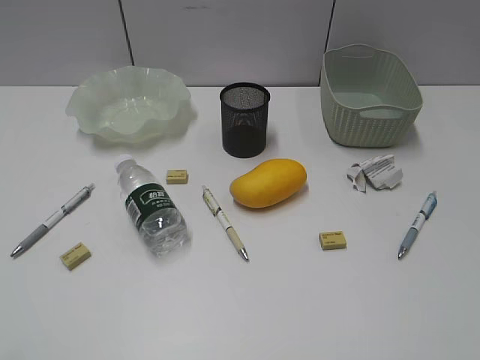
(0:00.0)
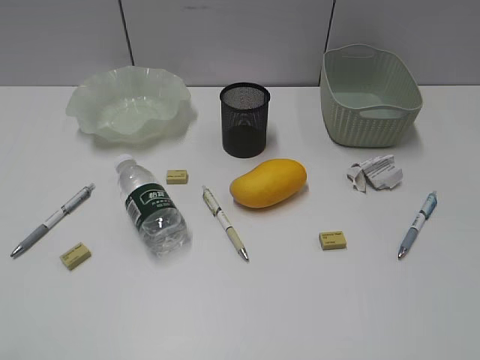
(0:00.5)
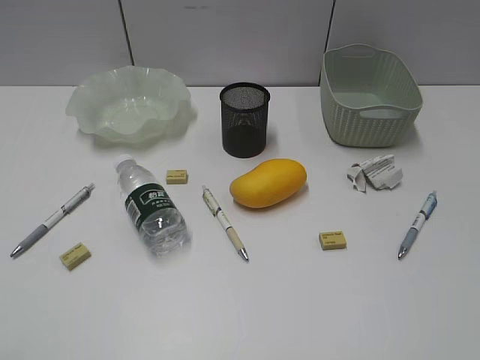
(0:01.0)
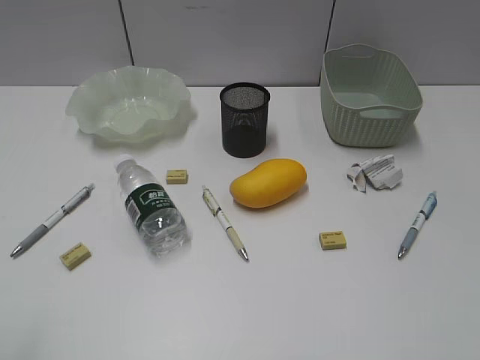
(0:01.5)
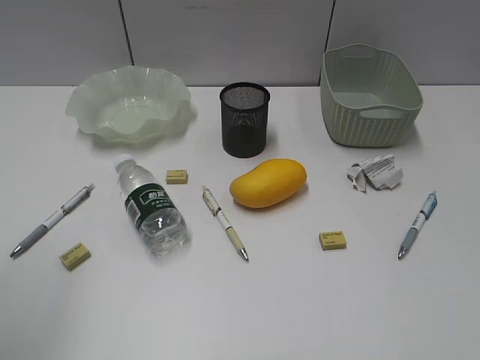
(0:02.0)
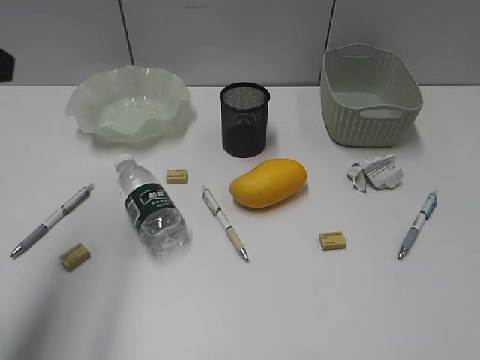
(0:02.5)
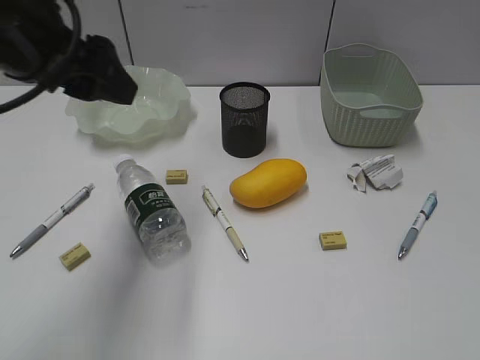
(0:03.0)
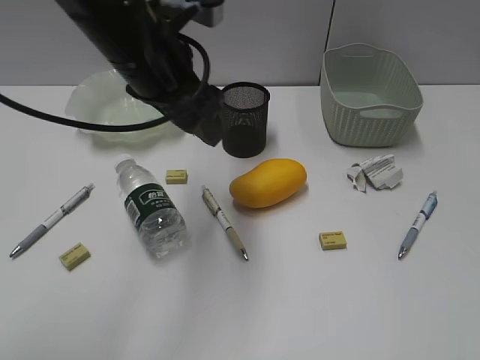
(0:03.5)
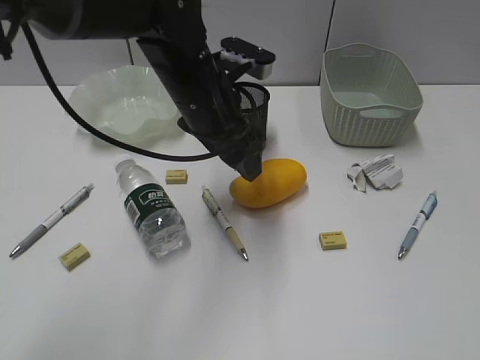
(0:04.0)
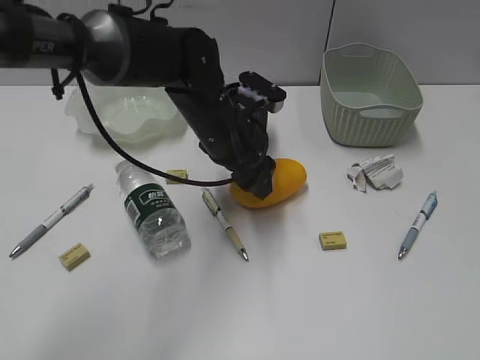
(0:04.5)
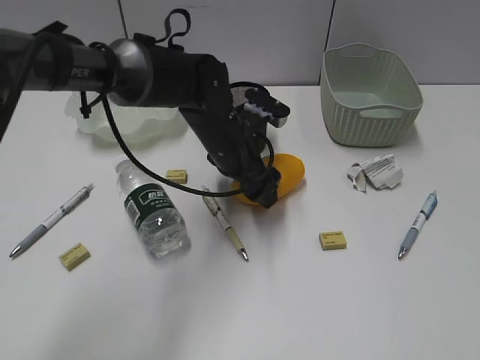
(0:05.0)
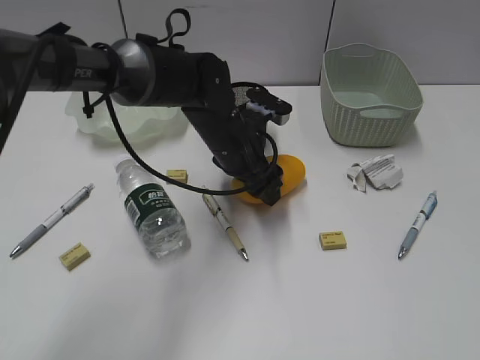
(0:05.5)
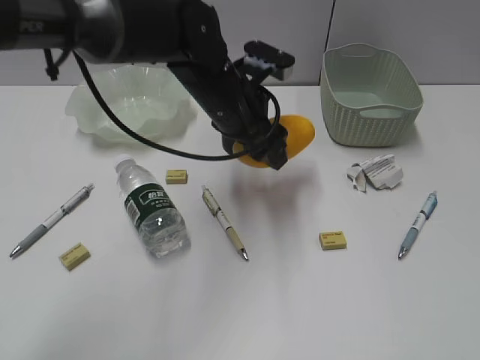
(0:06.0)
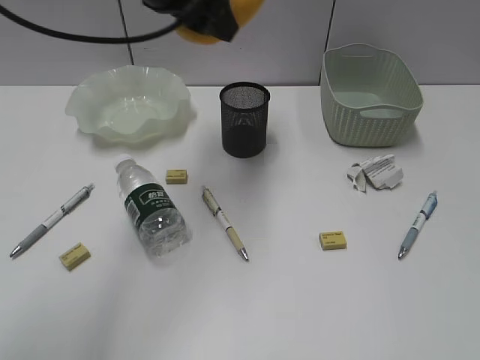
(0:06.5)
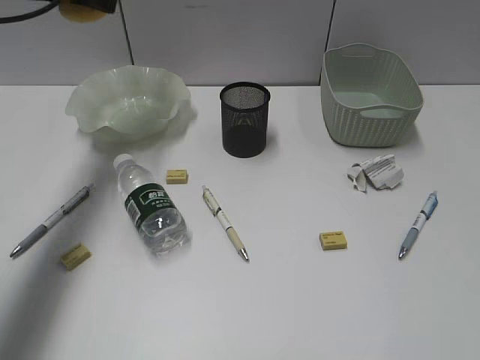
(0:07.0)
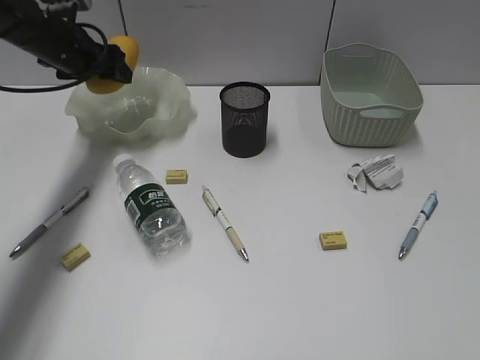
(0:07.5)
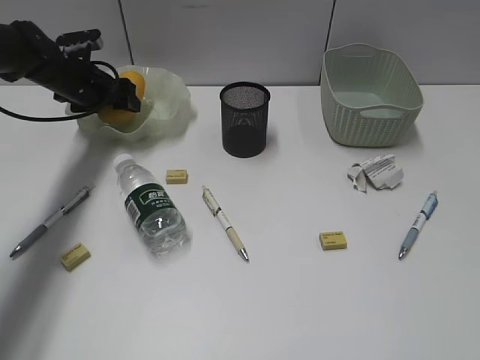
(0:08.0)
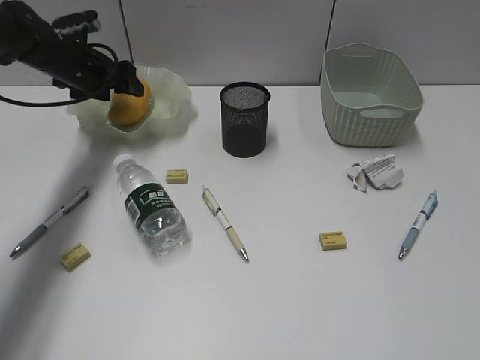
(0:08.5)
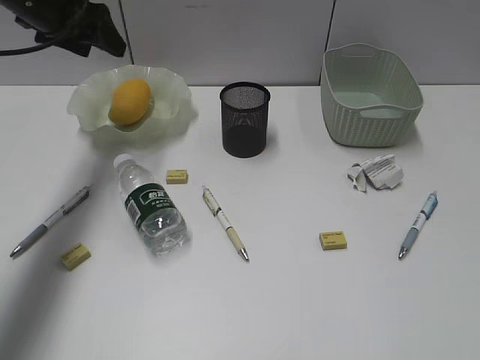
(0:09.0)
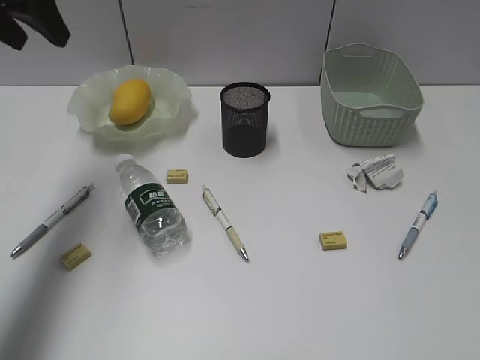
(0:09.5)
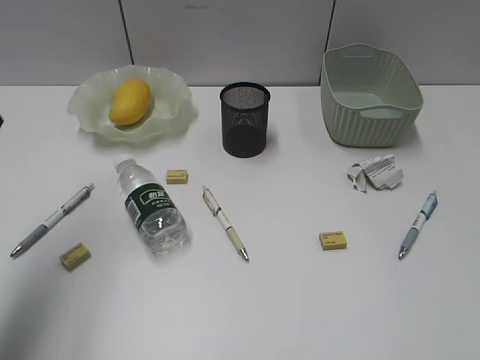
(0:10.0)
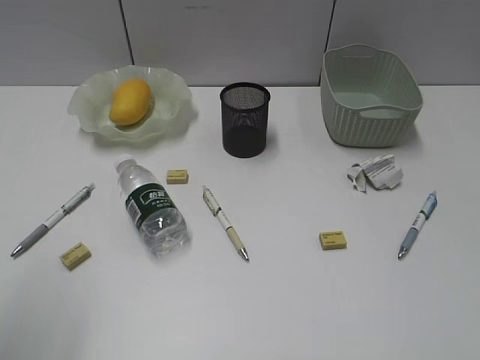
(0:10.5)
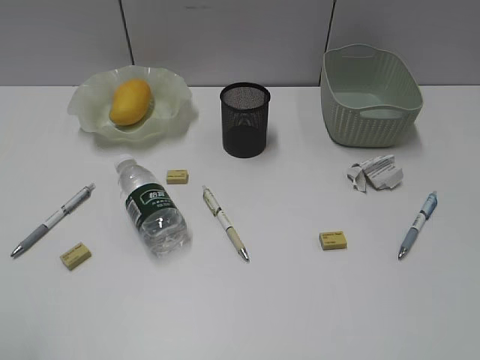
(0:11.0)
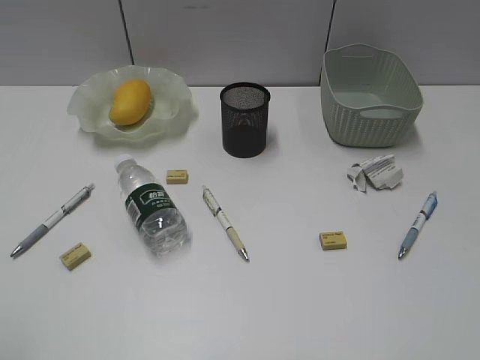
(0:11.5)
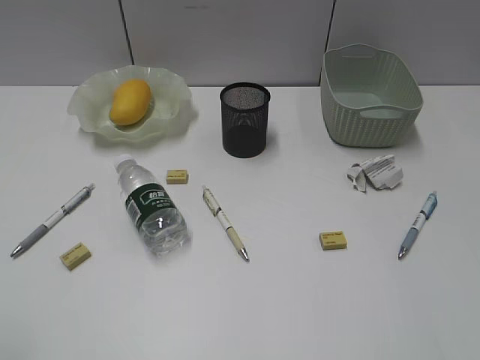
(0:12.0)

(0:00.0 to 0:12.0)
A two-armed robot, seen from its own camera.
Step, 0:02.5 - 0:05.5: Grasp the mango with left gripper.
Step, 0:06.0 - 0:08.5: Place the mango in the plate with left gripper.
0:02.0 - 0:04.0: The left gripper moves to the right, forward and downward, some 40 cm.
0:04.0 - 0:06.0: The left gripper reaches approximately 10 cm downward, then returns.
0:06.0 - 0:08.0: The left gripper goes some 25 cm to the left and forward.
0:08.0 - 0:10.0: The left gripper moves backward and upward, about 35 cm.
0:10.0 - 0:12.0: The left gripper travels backward by roughly 20 cm.

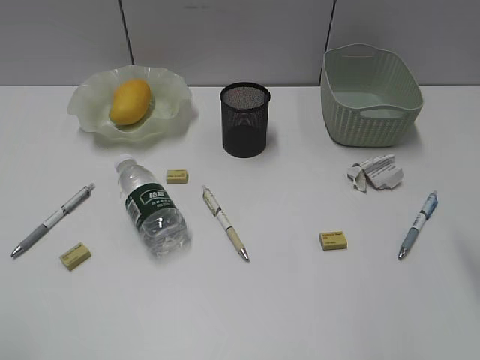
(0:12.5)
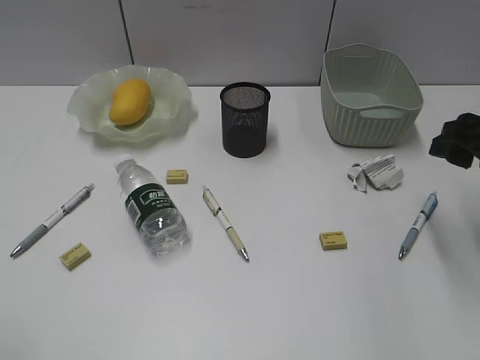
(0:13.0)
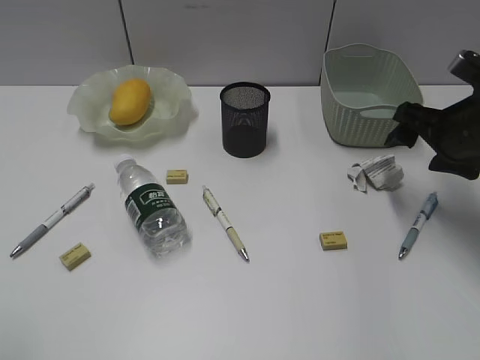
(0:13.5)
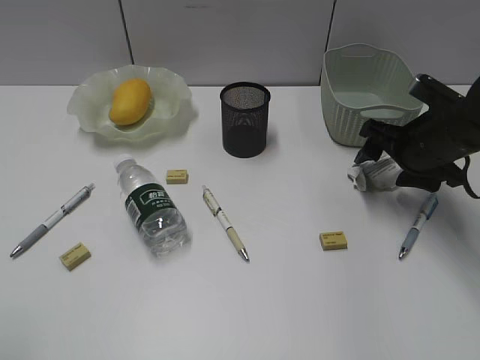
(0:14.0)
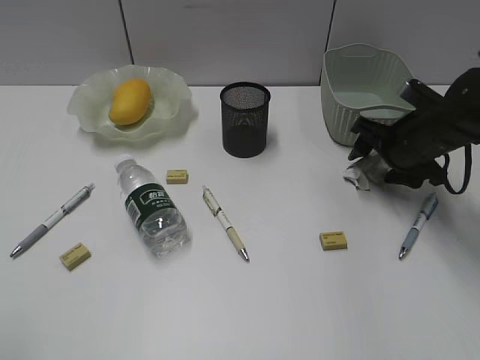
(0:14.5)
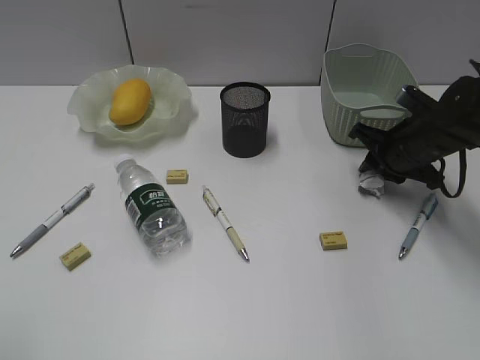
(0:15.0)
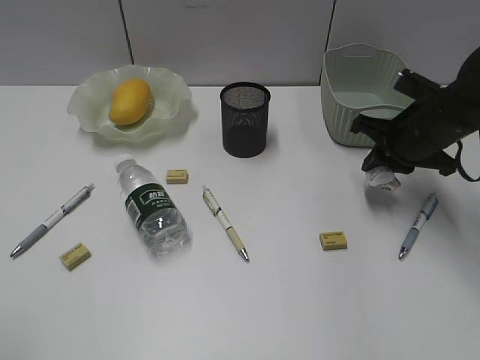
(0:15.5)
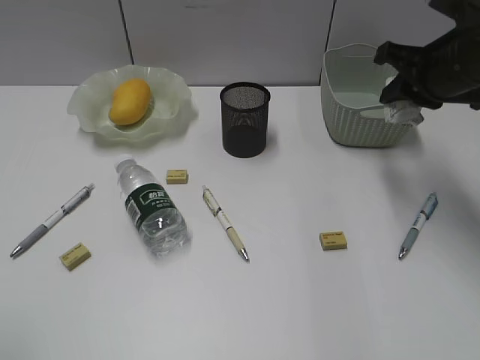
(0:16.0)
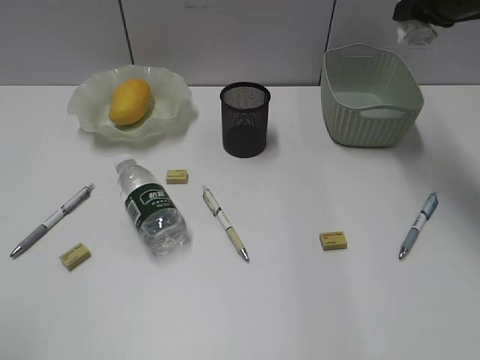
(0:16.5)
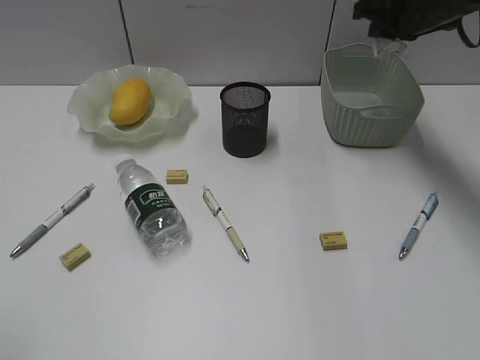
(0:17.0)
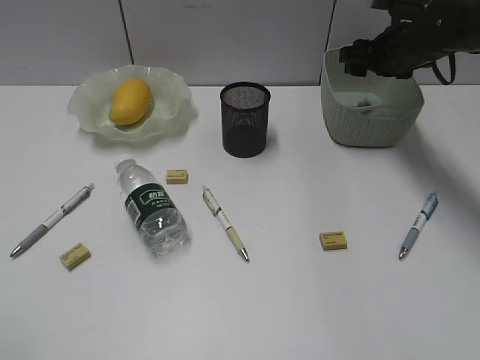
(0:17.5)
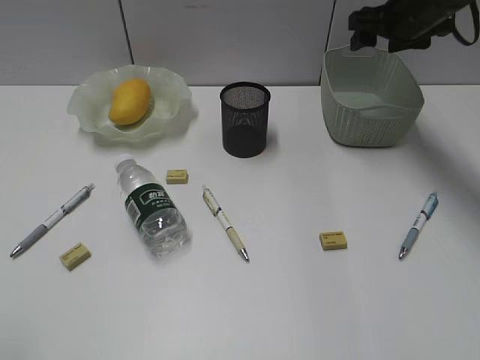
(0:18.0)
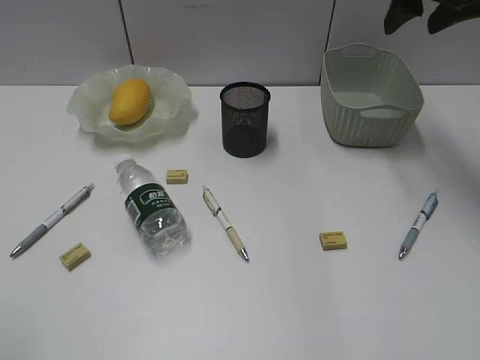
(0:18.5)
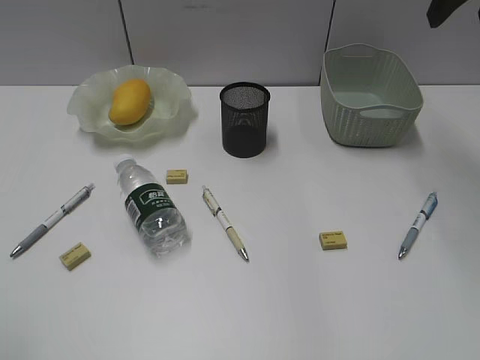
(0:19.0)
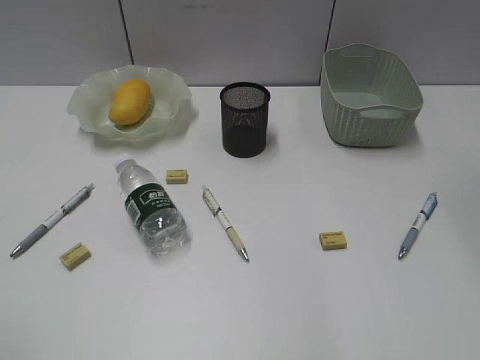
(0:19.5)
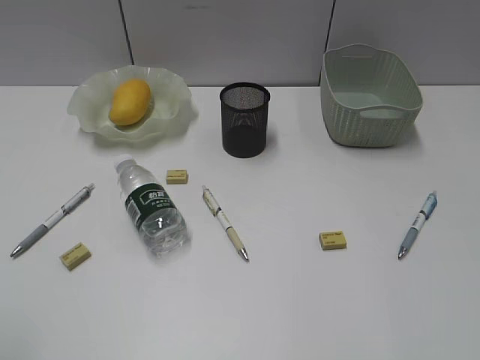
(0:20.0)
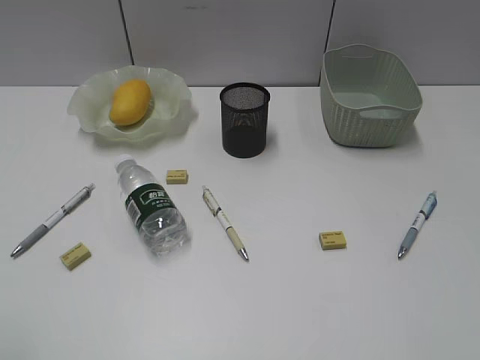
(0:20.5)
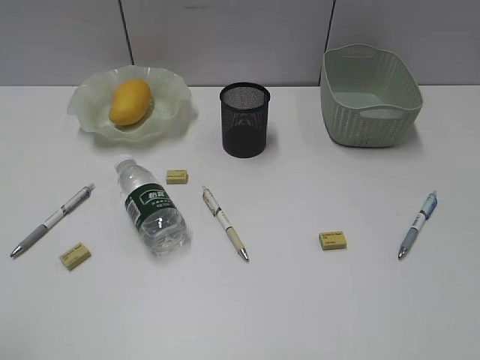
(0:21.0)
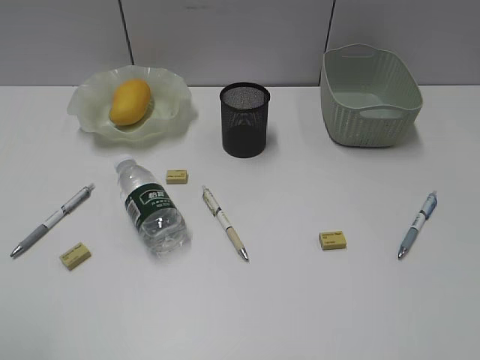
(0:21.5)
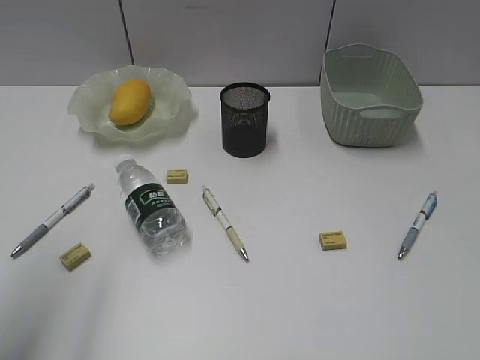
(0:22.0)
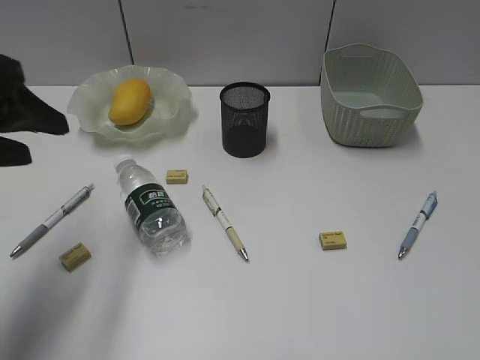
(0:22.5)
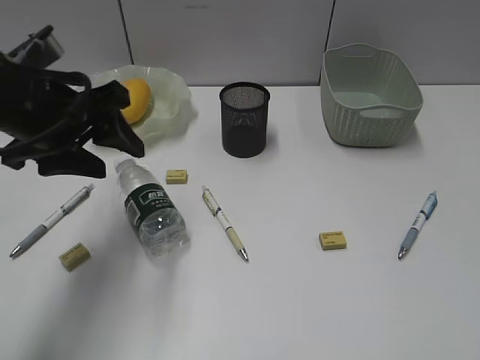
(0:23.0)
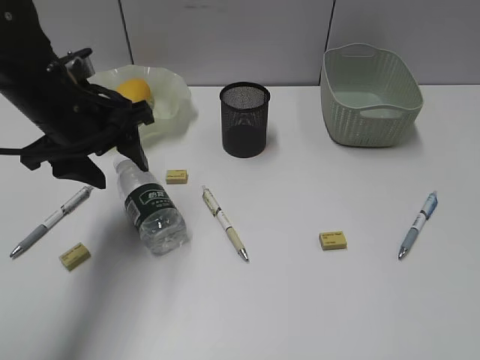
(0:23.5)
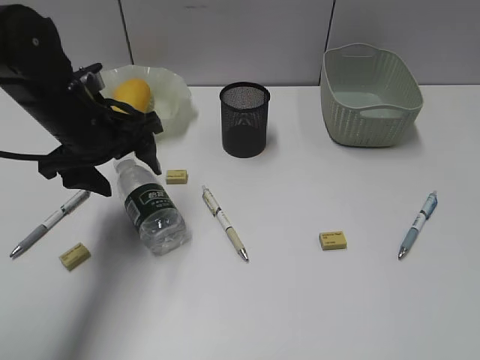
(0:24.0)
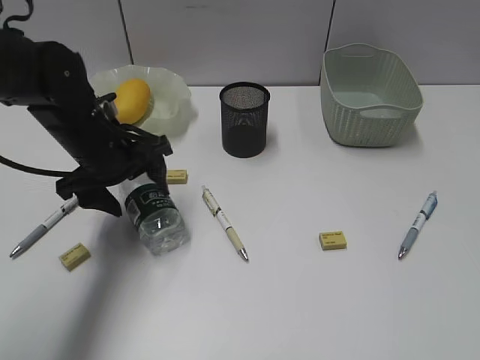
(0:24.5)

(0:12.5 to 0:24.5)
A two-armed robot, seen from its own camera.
Step, 0:12.5 - 0:15.0: Grasp the waste paper with right gripper.
Step, 0:15.5 - 0:17.5: Place the waste paper in the basket with right gripper.
0:12.5 - 0:14.5: The right gripper heads forward and downward, covering some 25 cm.
0:14.5 - 0:16.5: The right gripper travels upward by roughly 20 cm, and closes its fingers.
0:16.5 - 0:18.5: The right gripper goes downward and returns, some 10 cm each way, and opens.
0:18.5 - 0:20.5: The right gripper travels backward by approximately 40 cm.
0:20.5 - 0:22.5: The left gripper shifts roughly 20 cm forward.
0:22.5 - 0:24.5: The left gripper shifts roughly 20 cm downward, forward and to the right.

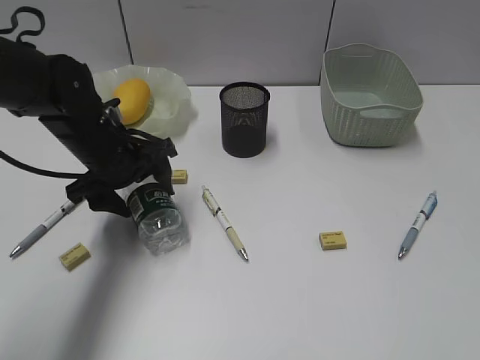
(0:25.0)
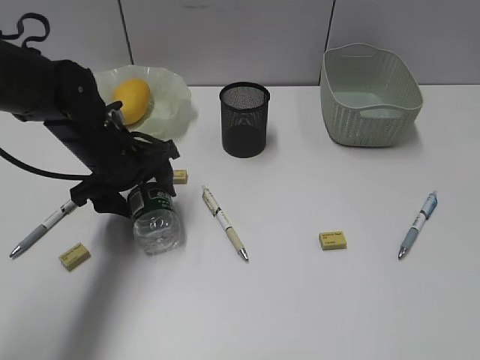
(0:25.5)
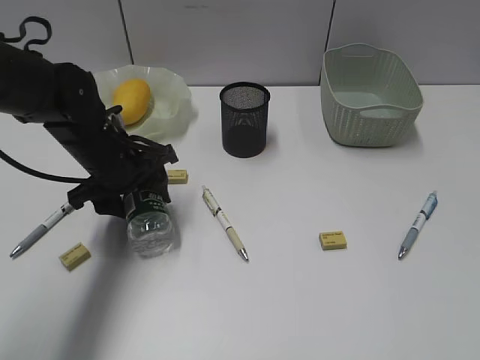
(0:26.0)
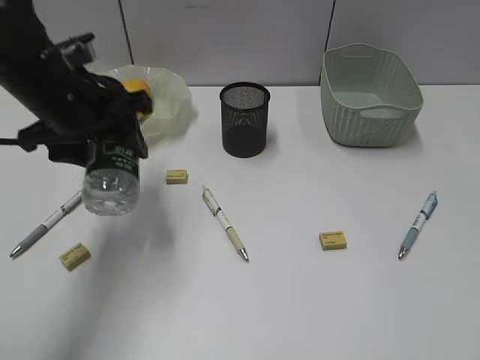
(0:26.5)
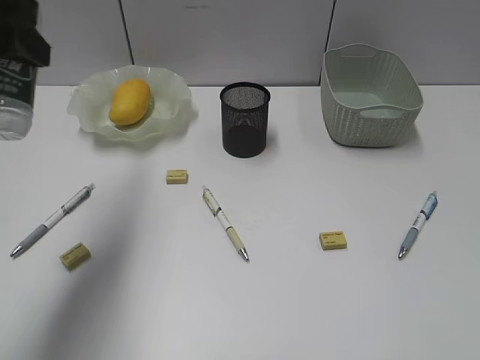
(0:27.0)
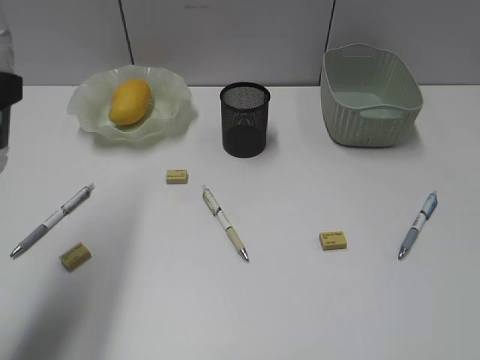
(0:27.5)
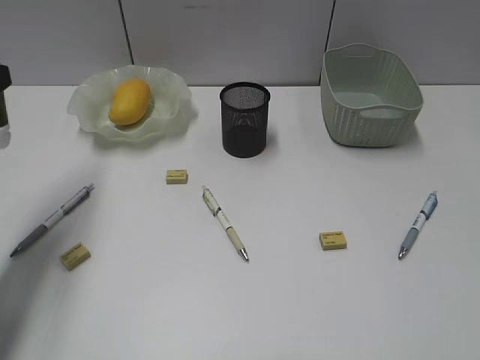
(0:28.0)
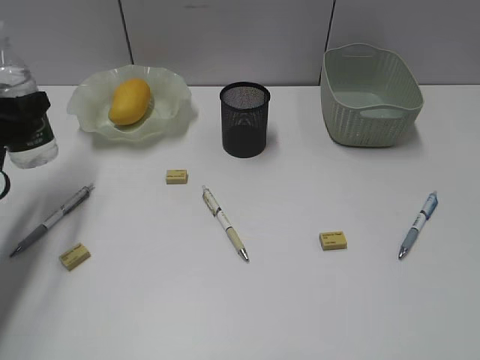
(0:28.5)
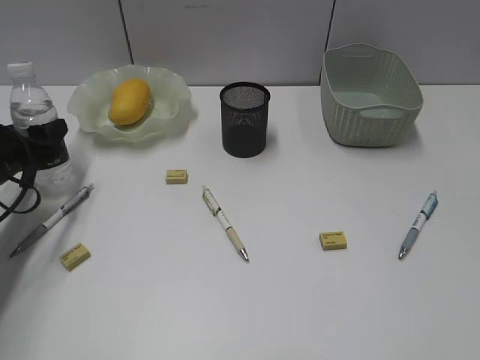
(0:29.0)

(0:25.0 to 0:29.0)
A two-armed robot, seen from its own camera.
0:25.0 - 0:27.0: The left gripper heads upward and backward, covering roughly 25 cm.
0:27.0 - 0:29.0: The left gripper is displaced downward by roughly 25 cm.
